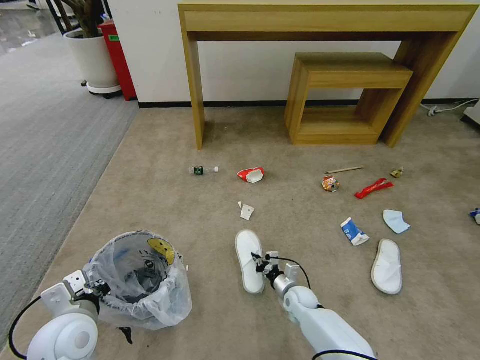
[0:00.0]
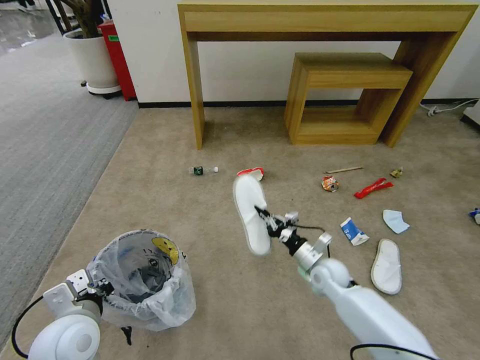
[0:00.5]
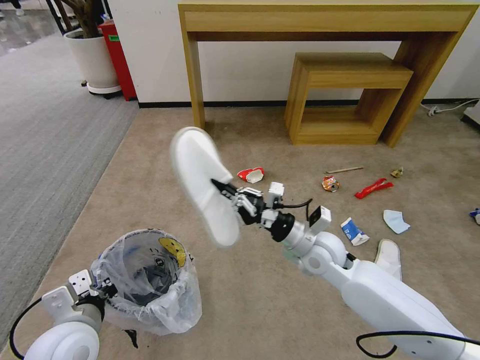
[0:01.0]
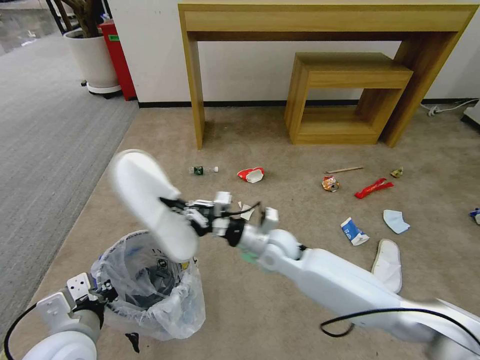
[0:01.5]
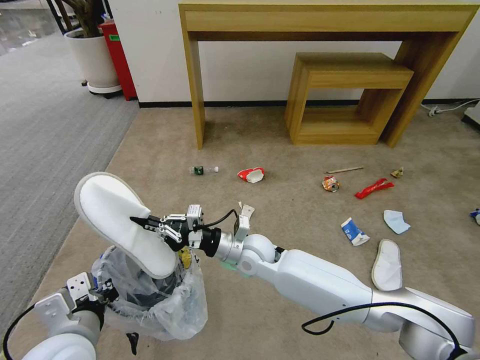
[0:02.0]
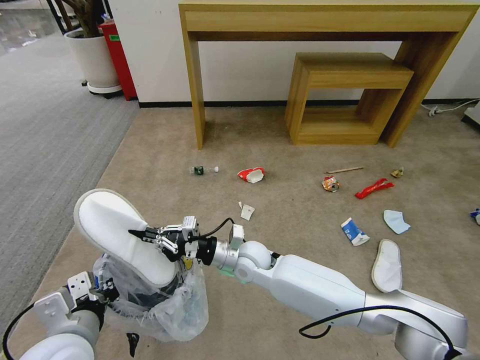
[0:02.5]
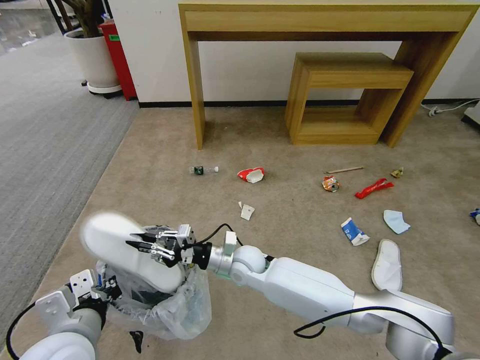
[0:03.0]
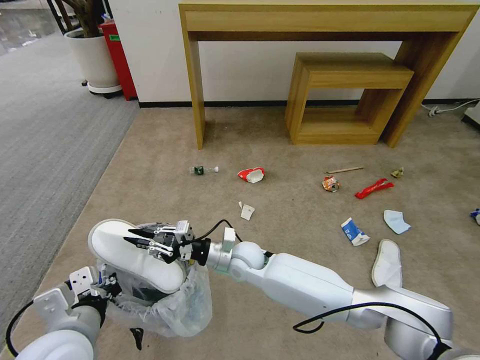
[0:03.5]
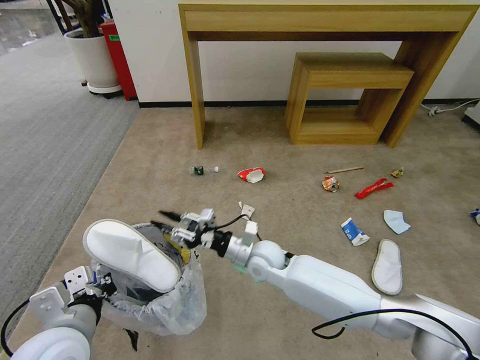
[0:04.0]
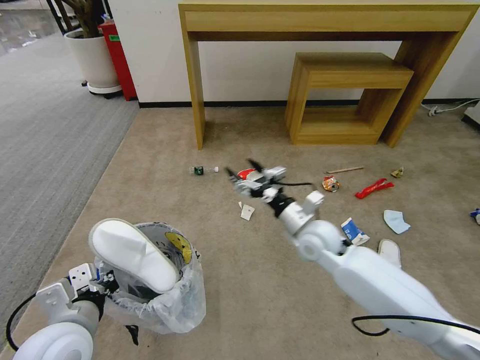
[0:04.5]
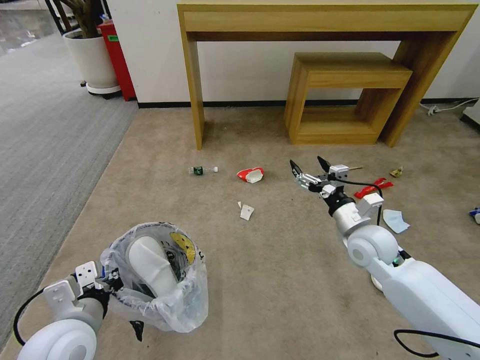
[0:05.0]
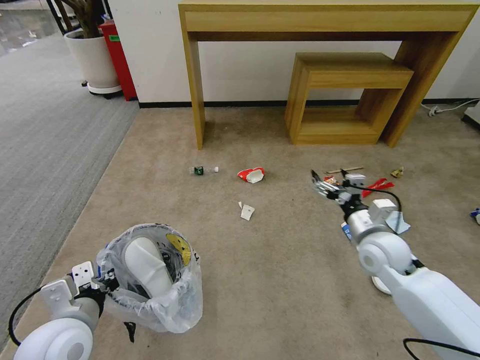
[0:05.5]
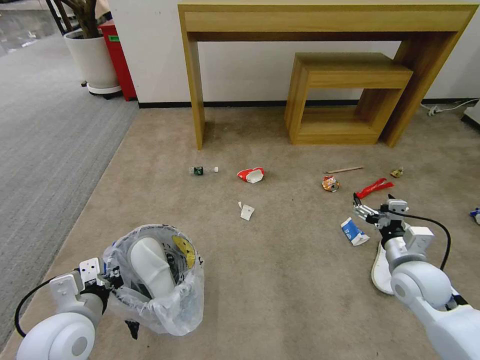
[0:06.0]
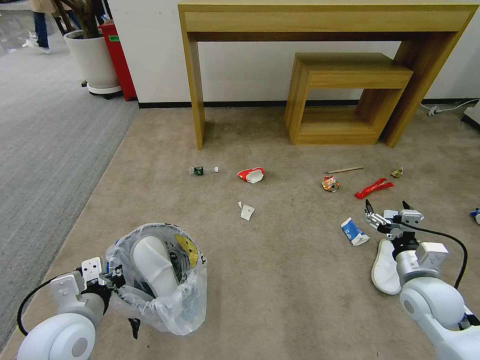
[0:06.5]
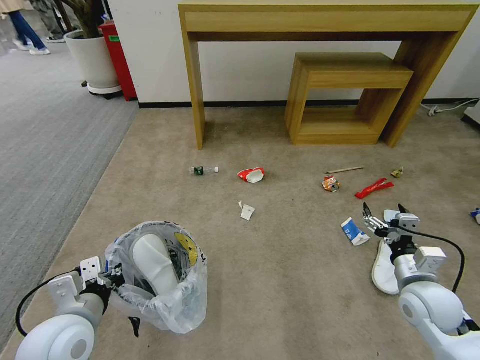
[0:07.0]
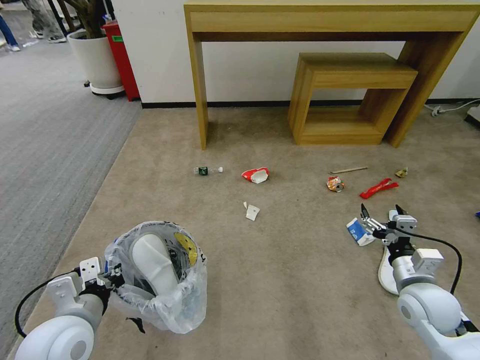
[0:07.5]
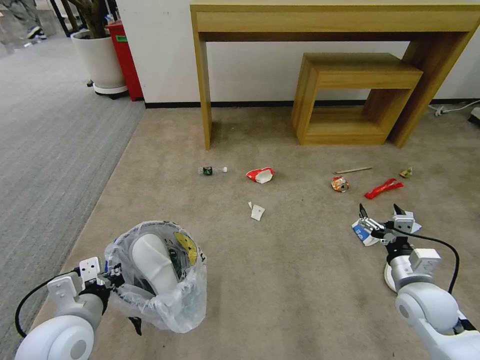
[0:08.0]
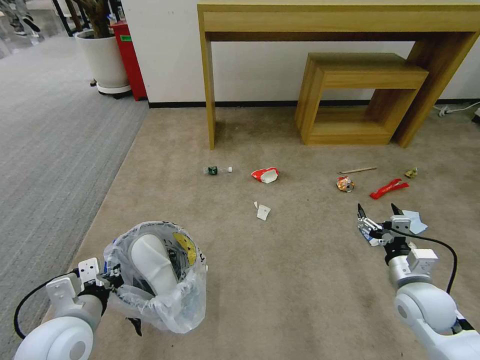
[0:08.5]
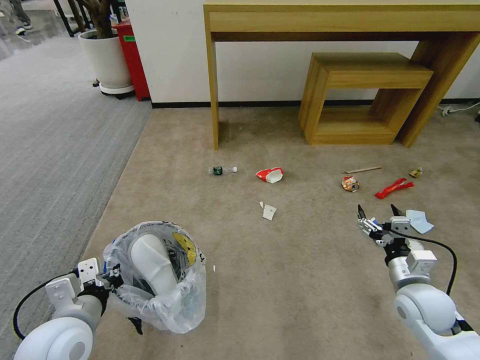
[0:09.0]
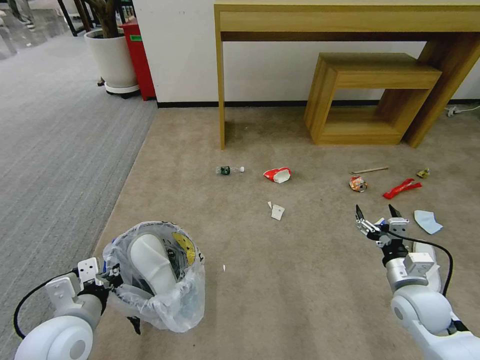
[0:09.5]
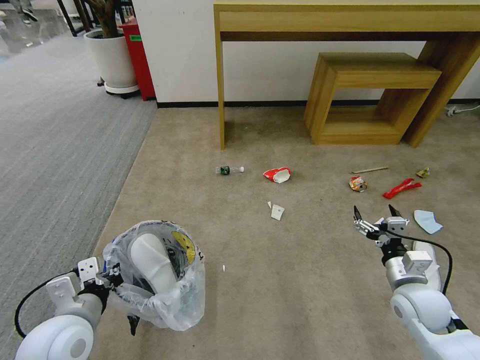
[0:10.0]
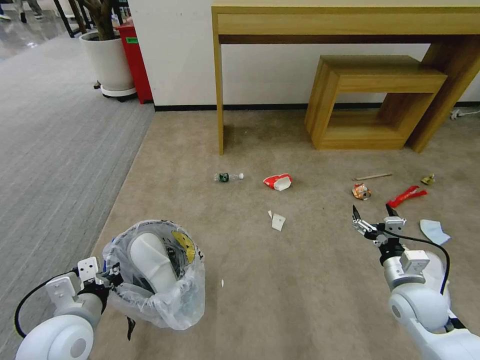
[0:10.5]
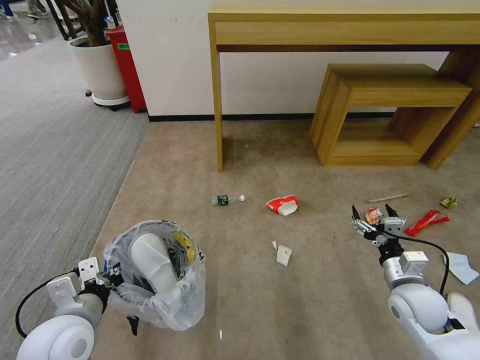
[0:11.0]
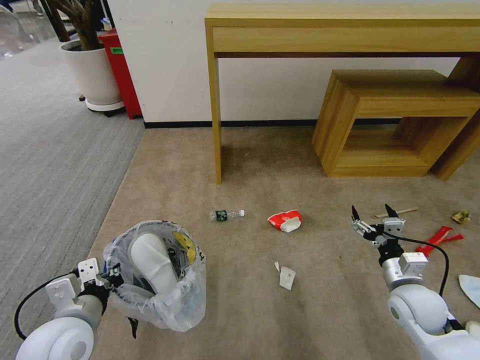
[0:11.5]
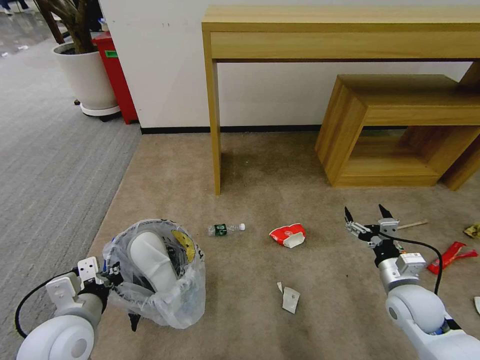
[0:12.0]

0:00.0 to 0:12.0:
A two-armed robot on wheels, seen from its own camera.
Task of the whole recording: Pick up the trash bin and place the garbage on the floor into it.
0:00.0 to 0:02.0: The right gripper goes approximately 30 cm upward and to the left. The left gripper is displaced upward by about 5 cm.
0:02.0 to 0:04.0: The right gripper opens up.
0:04.0 to 0:06.0: The right gripper heads to the right, covering roughly 30 cm, and opens up.
0:06.0 to 0:10.0: The grippers move only a little.

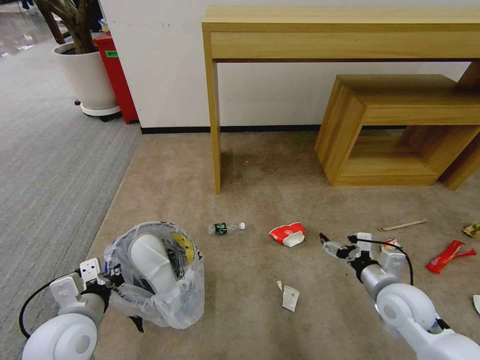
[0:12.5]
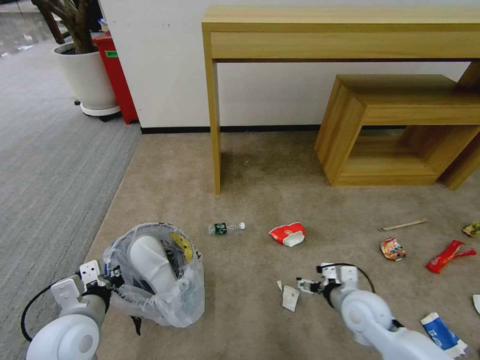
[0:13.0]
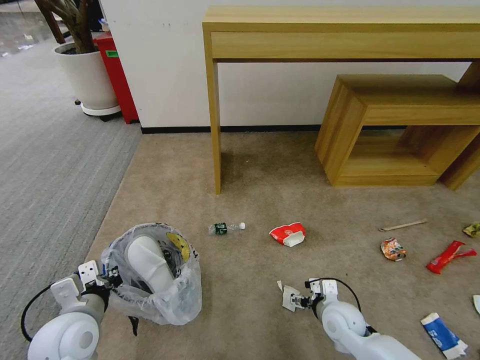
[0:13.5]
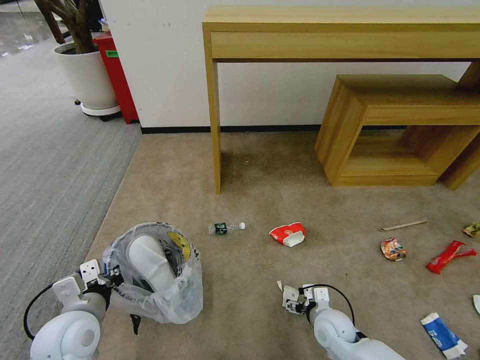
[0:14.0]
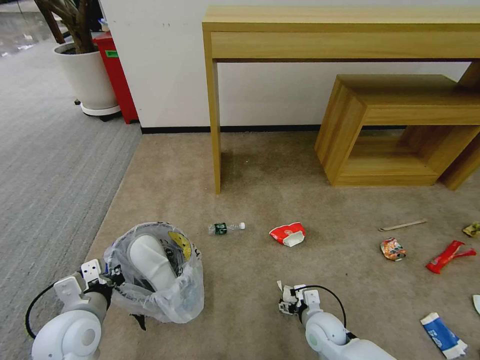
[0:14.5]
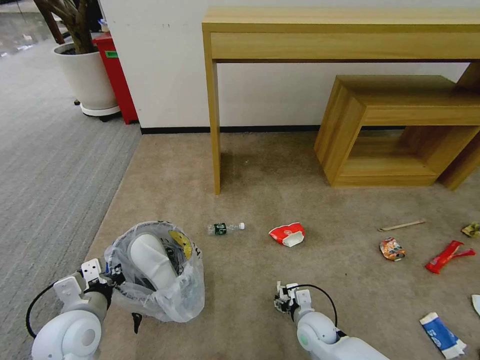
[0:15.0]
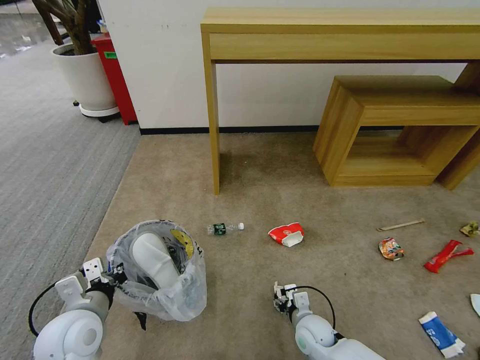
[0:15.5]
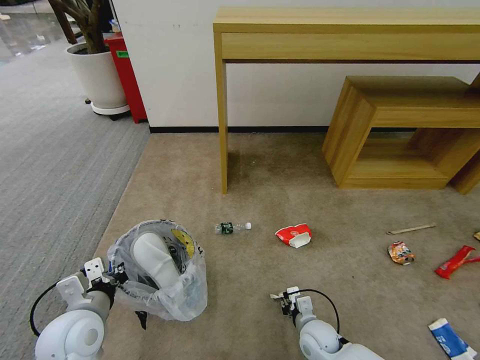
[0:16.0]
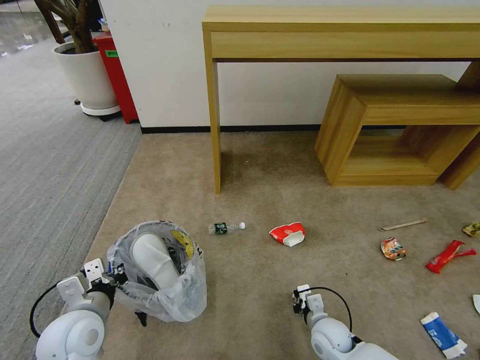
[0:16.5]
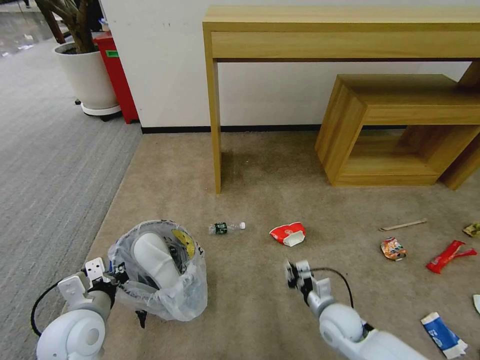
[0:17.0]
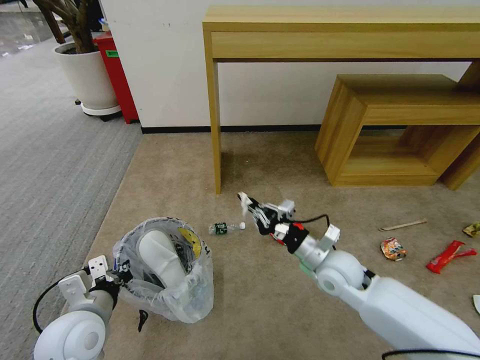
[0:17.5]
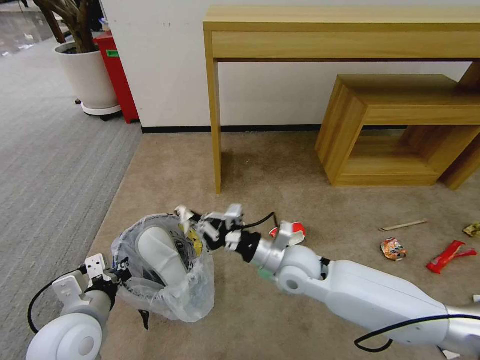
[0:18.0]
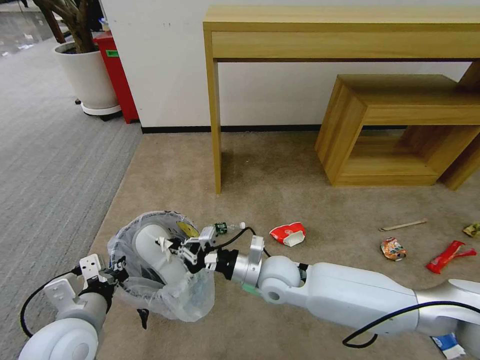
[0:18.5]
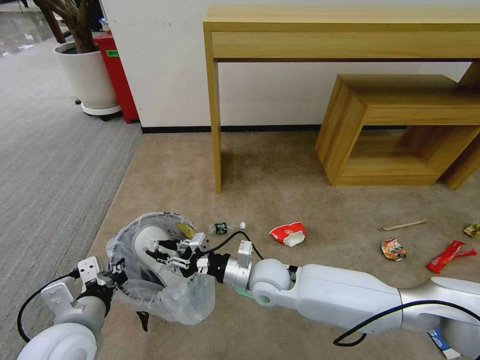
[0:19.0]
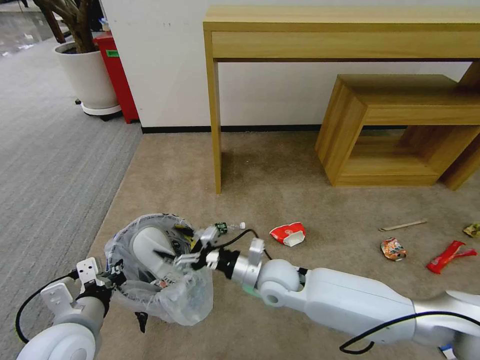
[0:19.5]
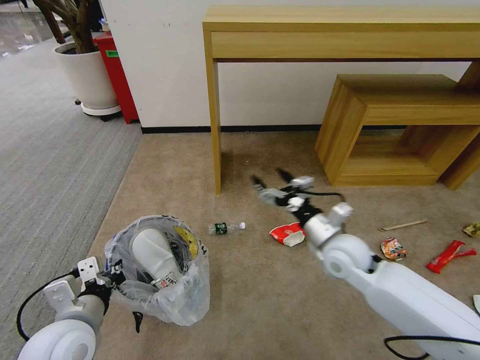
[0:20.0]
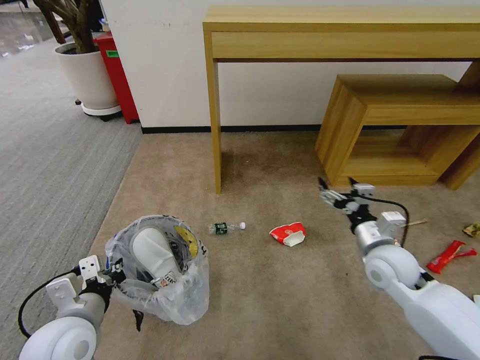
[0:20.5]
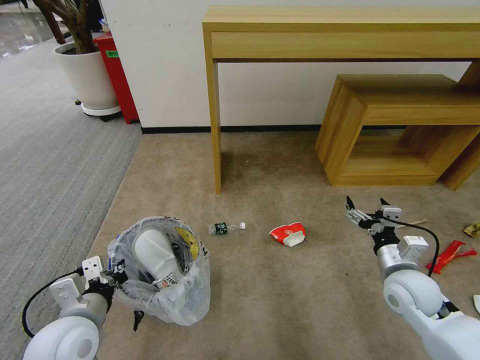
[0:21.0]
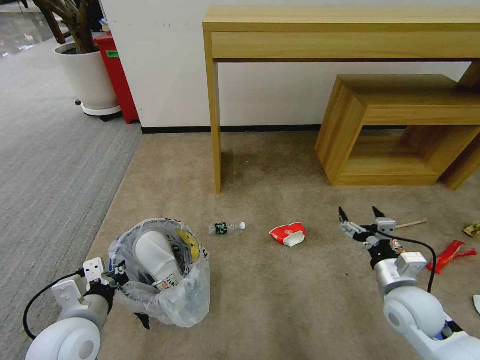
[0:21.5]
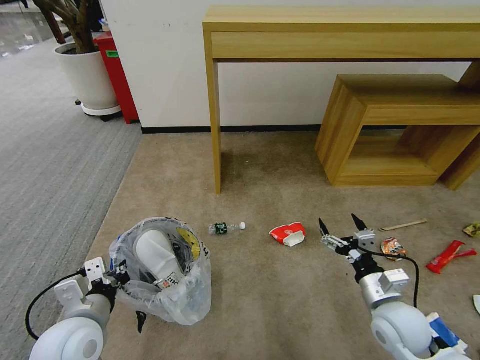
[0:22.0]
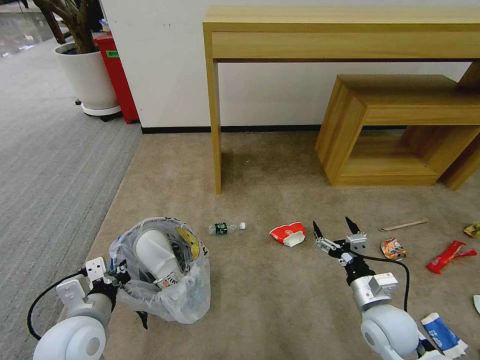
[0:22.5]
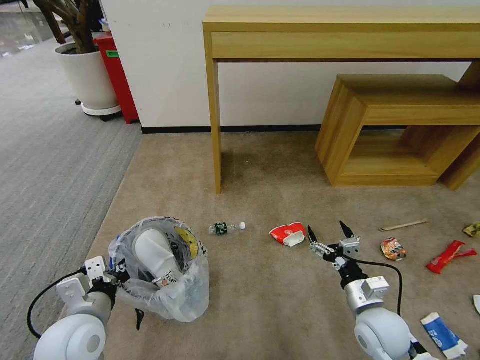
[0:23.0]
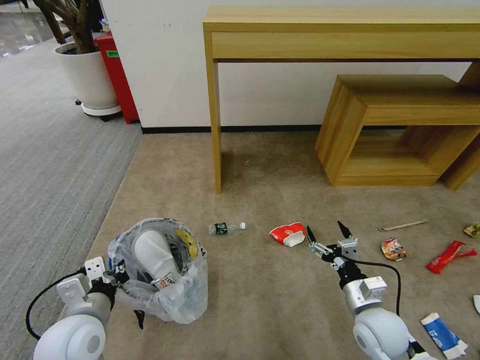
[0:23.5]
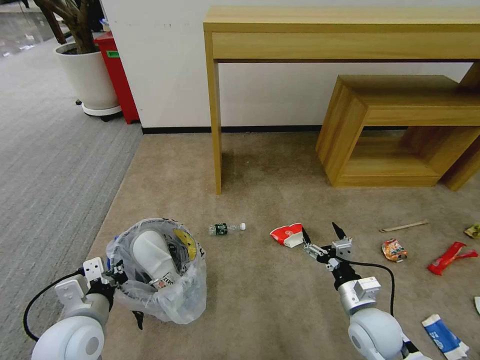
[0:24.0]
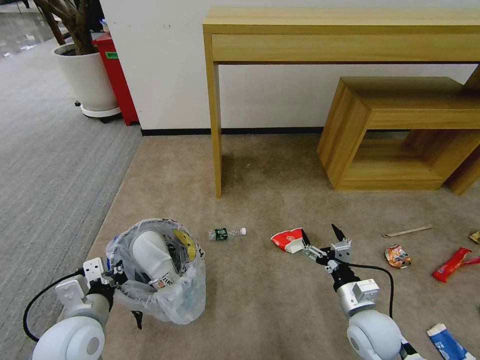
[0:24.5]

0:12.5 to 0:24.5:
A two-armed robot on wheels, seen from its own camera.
Task of the whole recording: Pick up the trash bin and place the garbage on the floor into it.
0:12.5 to 0:14.5: The right gripper moves downward and to the left, roughly 20 cm.
0:14.5 to 0:16.5: The right gripper closes up.
0:16.5 to 0:18.5: The right gripper shifts some 25 cm upward, to the left and forward. Meanwhile the left gripper moves roughly 5 cm.
0:18.5 to 0:20.5: The right gripper moves to the right, approximately 25 cm, and opens up.
0:20.5 to 0:22.5: The right gripper goes about 10 cm backward and downward.
0:22.5 to 0:24.5: The grippers move only a little.

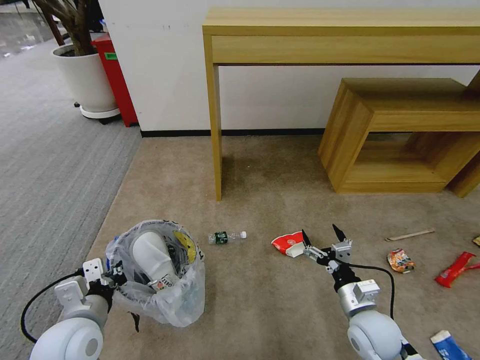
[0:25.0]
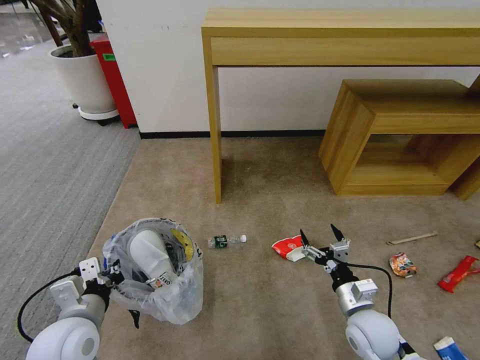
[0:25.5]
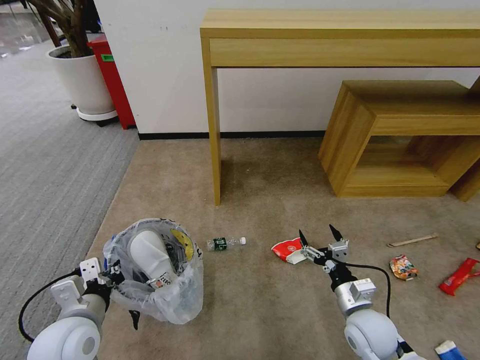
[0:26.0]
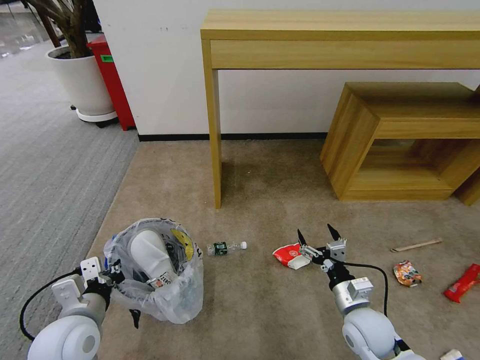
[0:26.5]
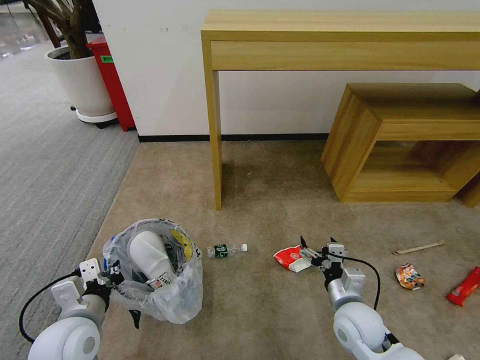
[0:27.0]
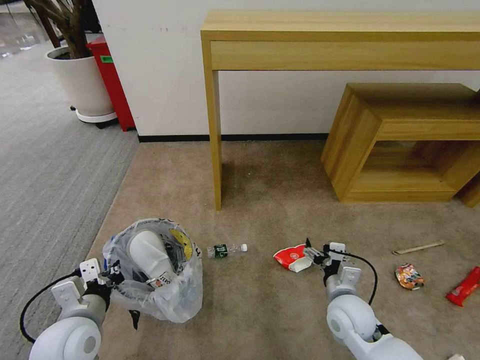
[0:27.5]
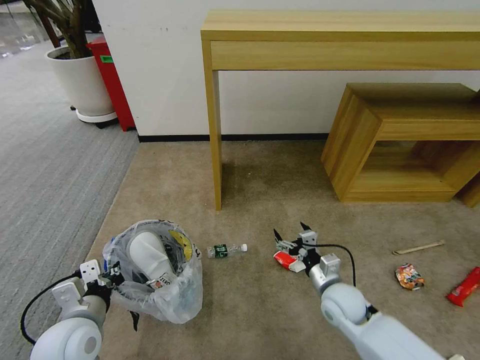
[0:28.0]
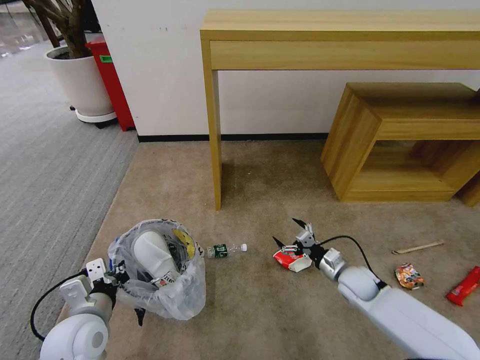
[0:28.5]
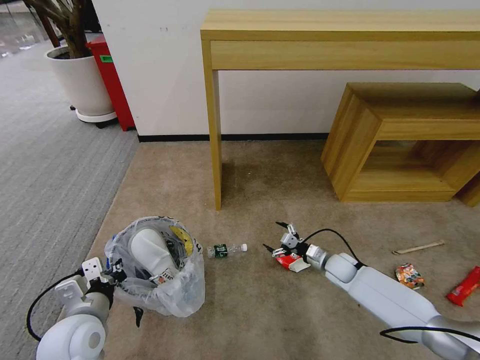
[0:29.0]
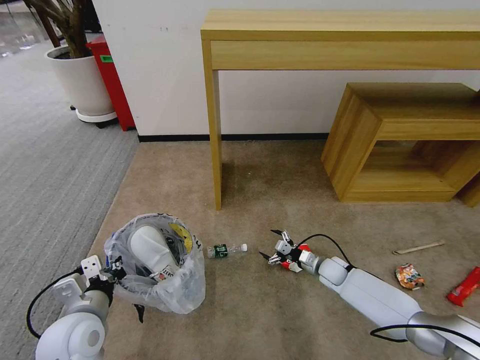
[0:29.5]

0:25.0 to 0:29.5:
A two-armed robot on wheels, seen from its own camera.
Task of the whole recording: Pick up the trash bin and place the garbage on the floor into it.
0:25.0 to 0:27.0: There are only small adjustments of the grippers.
0:27.0 to 0:29.5: The right gripper shifts some 20 cm forward and downward.
